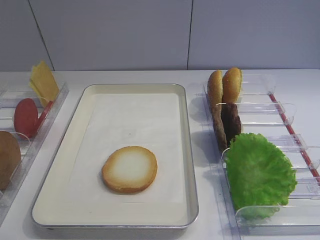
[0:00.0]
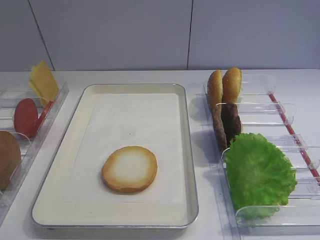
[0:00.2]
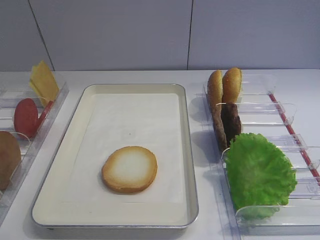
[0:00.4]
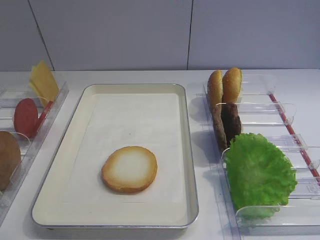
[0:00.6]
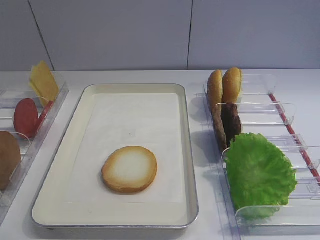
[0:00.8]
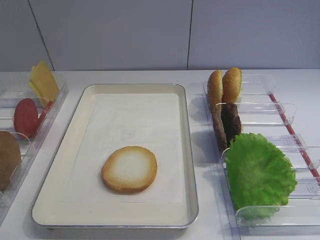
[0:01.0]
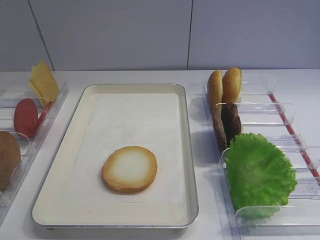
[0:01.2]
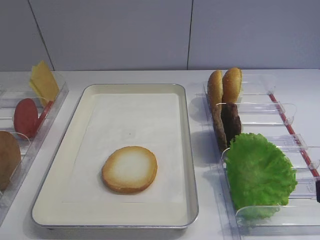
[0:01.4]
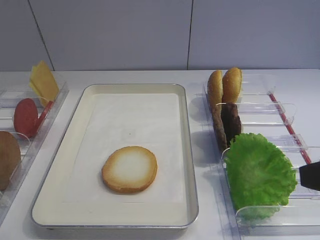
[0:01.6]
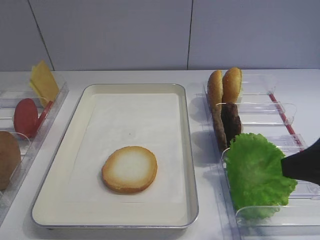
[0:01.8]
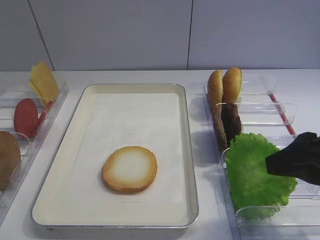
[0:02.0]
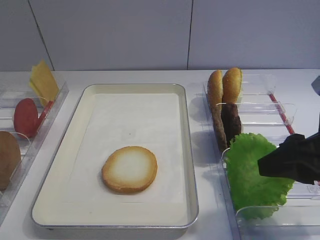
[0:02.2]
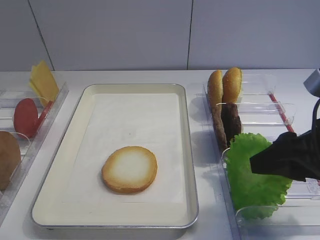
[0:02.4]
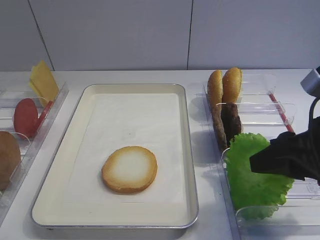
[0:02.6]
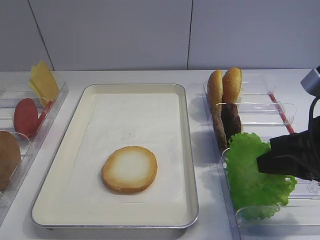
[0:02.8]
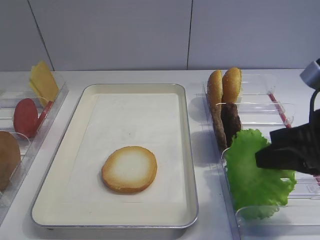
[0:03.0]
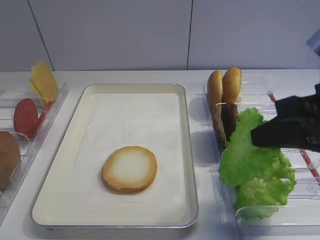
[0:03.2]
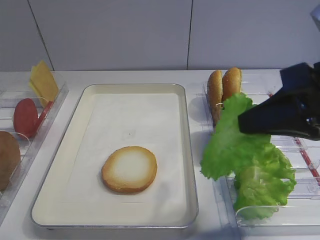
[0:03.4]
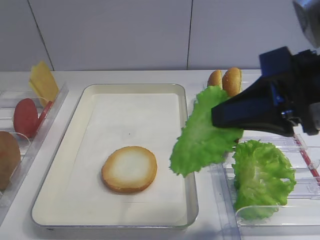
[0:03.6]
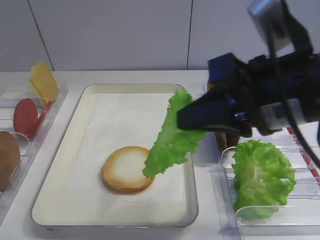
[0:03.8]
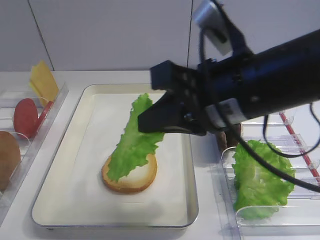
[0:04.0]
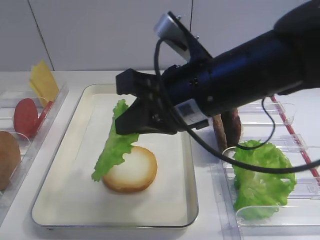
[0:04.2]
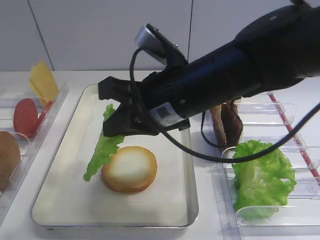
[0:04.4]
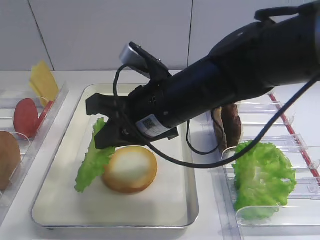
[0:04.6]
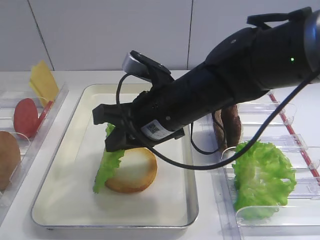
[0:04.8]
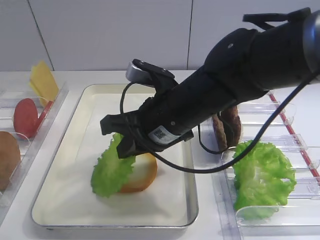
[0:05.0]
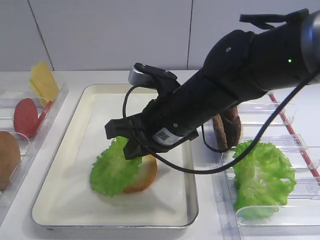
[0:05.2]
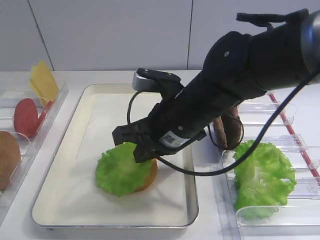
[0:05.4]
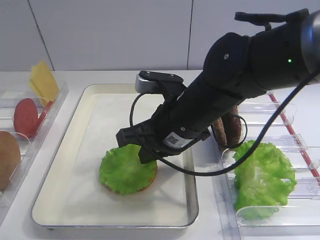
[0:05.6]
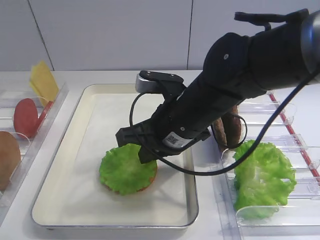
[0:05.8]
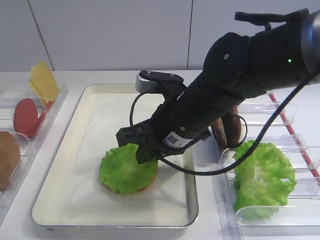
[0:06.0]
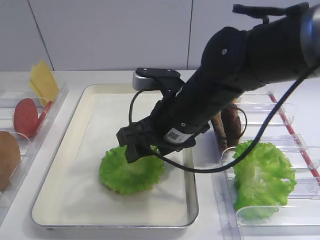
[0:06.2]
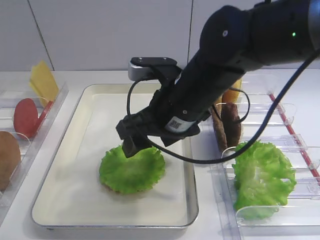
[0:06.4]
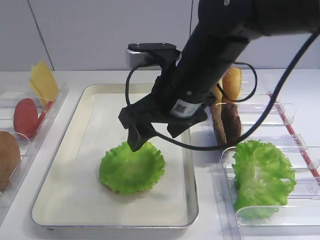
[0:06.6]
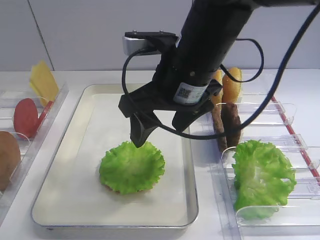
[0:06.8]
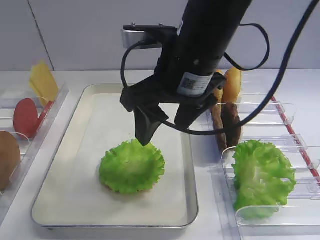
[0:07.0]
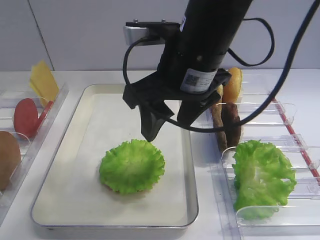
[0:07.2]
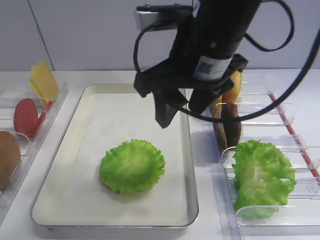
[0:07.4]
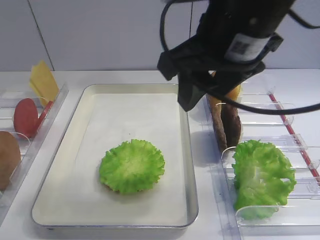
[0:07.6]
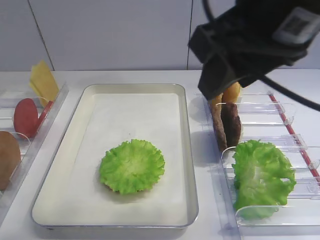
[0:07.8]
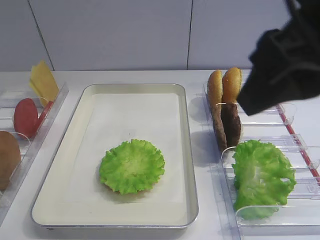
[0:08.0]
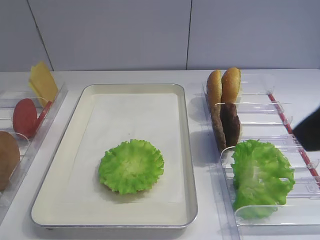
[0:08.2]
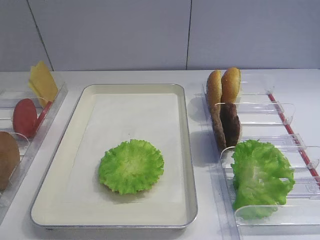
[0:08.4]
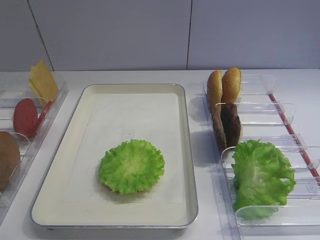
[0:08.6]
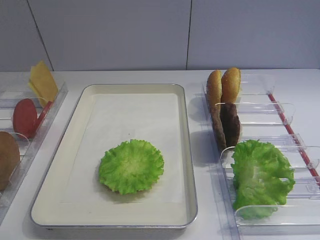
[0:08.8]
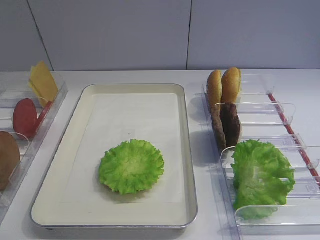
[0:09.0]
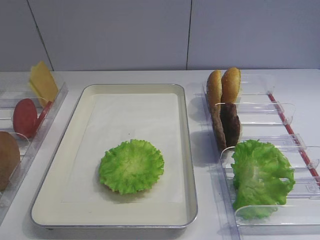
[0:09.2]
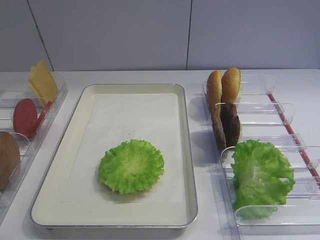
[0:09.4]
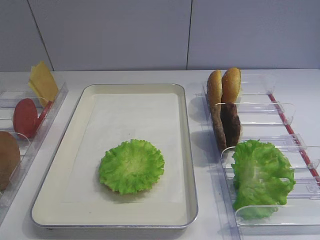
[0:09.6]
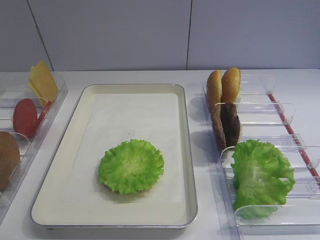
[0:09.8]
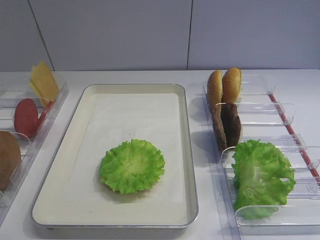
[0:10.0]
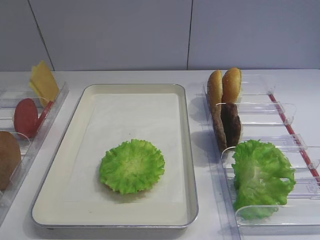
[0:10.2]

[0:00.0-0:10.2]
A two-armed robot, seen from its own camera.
Step, 0:00.0 to 0:03.0: Pick up the lettuce leaf with the right gripper.
Step, 0:03.2 to 0:06.6: Place the lettuce leaf on the bread slice with the right gripper.
0:01.4 to 0:03.0: The right gripper moves forward, about 10 cm, and closes.
0:03.0 to 0:04.4: The right gripper is displaced to the left by about 20 cm.
0:04.4 to 0:05.8: The right gripper travels downward by roughly 5 cm.
0:05.8 to 0:07.2: The right gripper shifts approximately 10 cm upward, and opens.
0:07.2 to 0:08.8: The right gripper travels backward and to the right by roughly 30 cm.
0:08.8 to 0:10.2: The right gripper moves downward, roughly 5 cm.

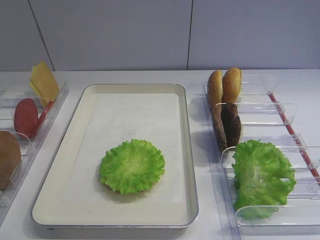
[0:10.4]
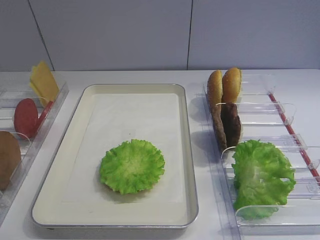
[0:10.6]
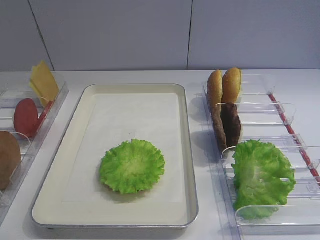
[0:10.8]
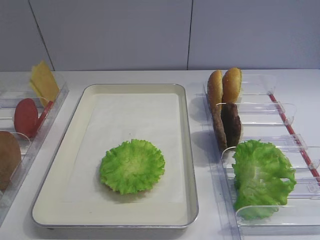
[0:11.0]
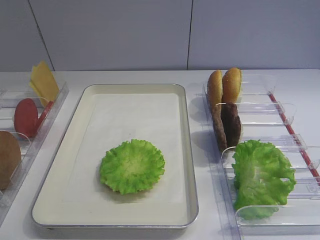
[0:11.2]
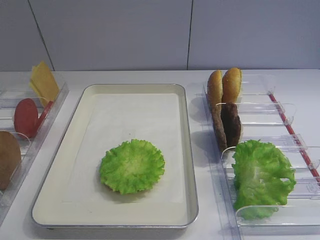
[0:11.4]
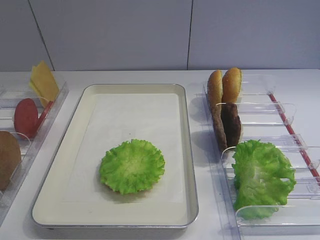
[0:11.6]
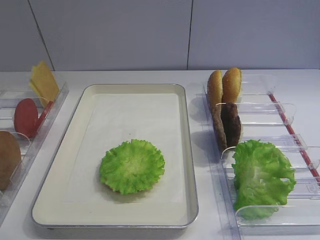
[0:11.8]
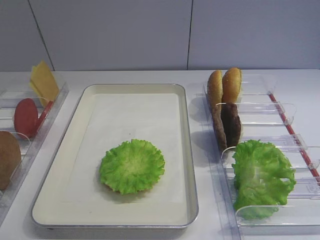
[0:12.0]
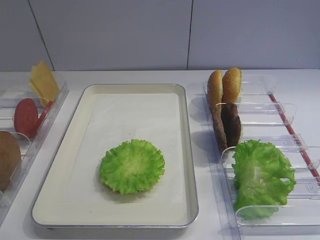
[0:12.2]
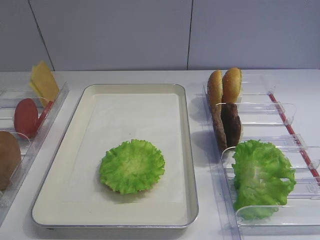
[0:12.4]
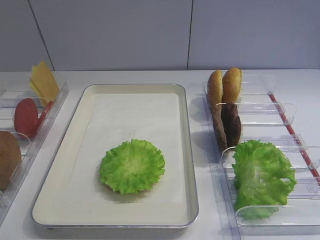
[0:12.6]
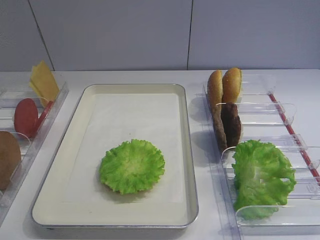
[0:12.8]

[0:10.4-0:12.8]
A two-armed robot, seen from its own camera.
0:10.4 to 0:12.8: Both grippers stay put.

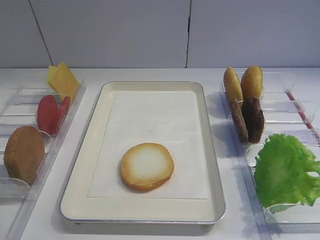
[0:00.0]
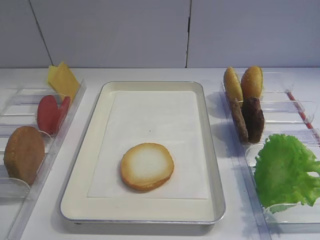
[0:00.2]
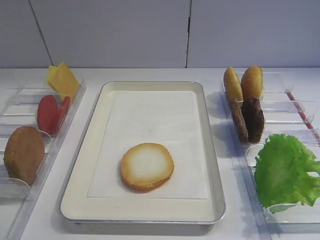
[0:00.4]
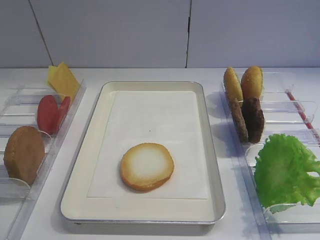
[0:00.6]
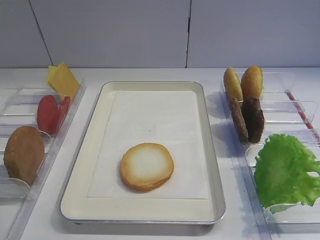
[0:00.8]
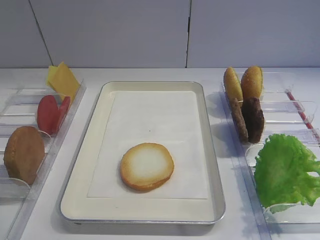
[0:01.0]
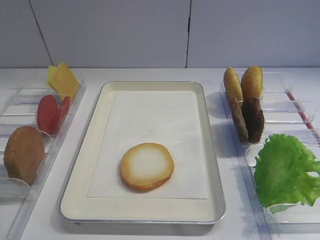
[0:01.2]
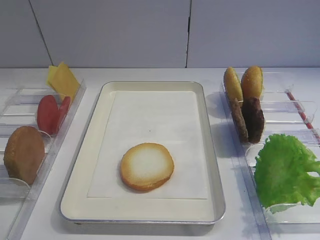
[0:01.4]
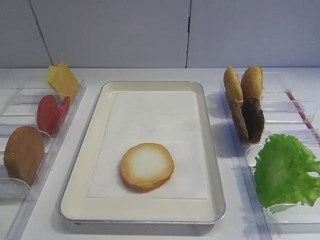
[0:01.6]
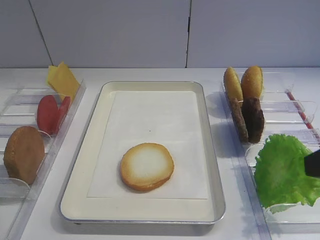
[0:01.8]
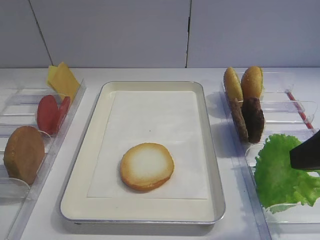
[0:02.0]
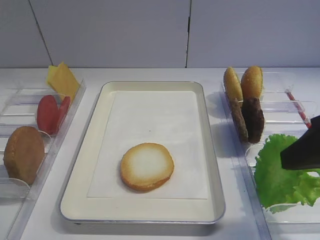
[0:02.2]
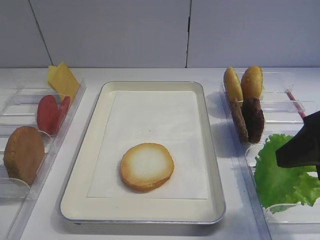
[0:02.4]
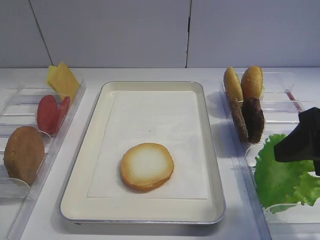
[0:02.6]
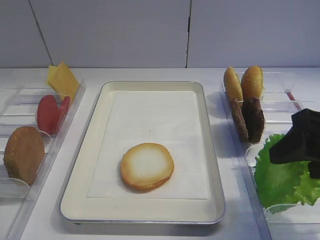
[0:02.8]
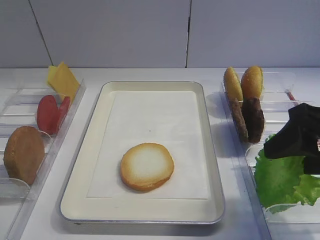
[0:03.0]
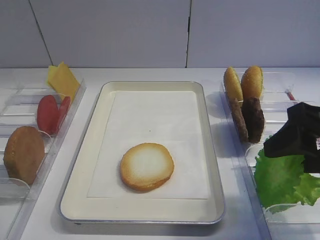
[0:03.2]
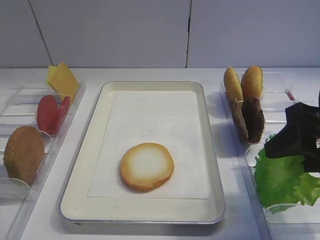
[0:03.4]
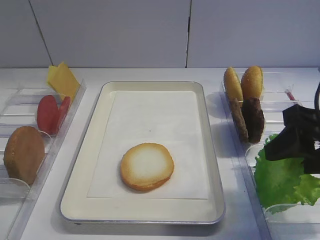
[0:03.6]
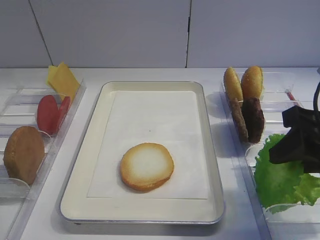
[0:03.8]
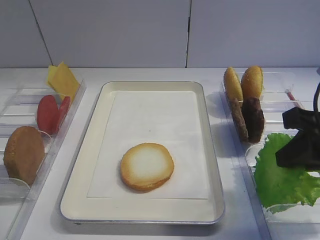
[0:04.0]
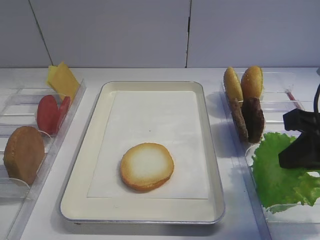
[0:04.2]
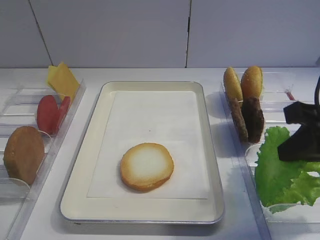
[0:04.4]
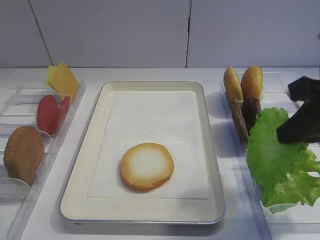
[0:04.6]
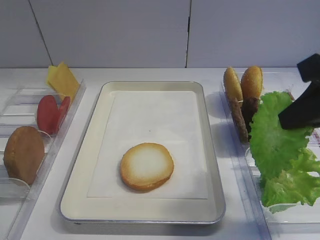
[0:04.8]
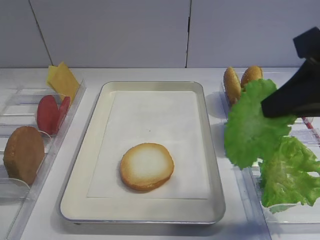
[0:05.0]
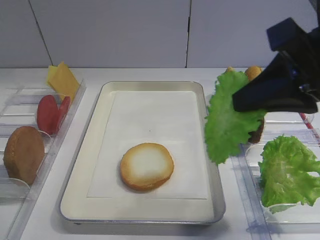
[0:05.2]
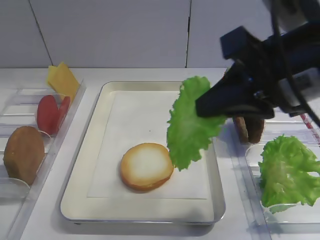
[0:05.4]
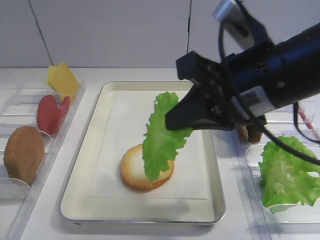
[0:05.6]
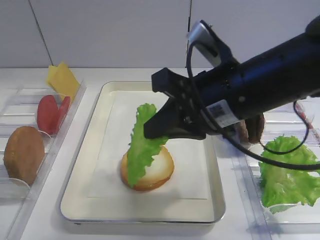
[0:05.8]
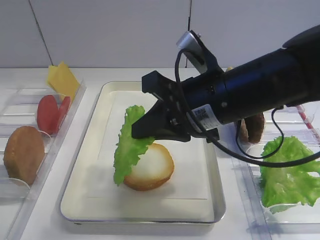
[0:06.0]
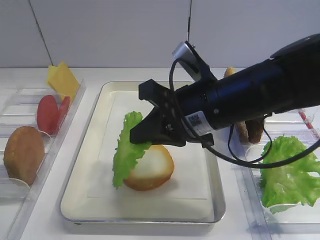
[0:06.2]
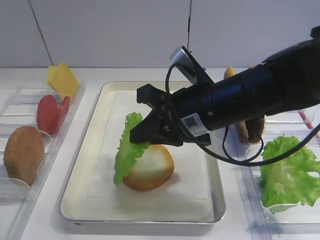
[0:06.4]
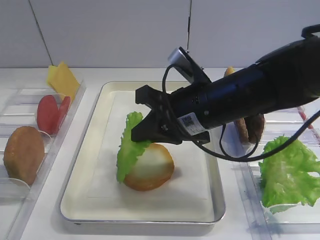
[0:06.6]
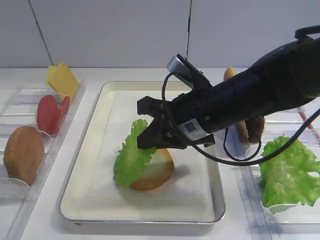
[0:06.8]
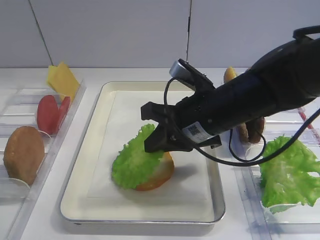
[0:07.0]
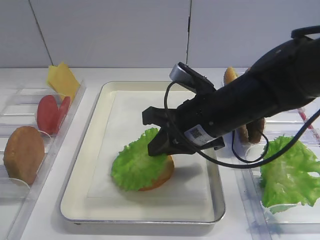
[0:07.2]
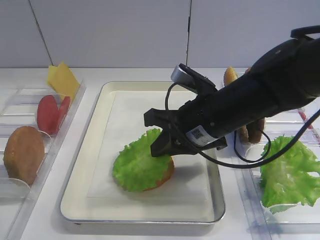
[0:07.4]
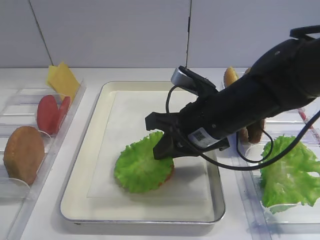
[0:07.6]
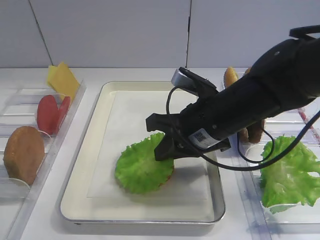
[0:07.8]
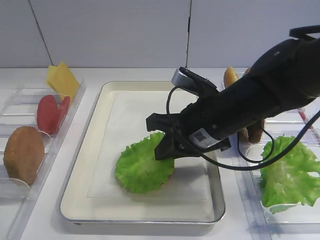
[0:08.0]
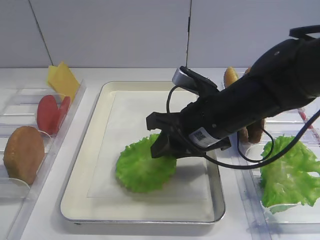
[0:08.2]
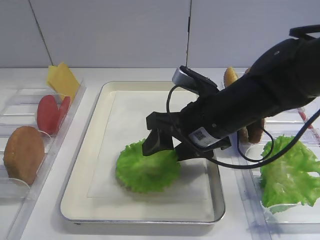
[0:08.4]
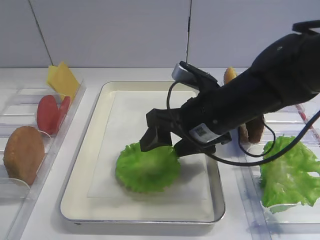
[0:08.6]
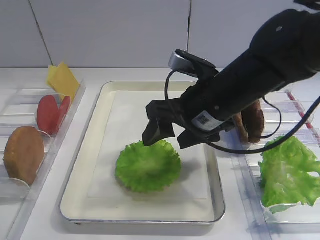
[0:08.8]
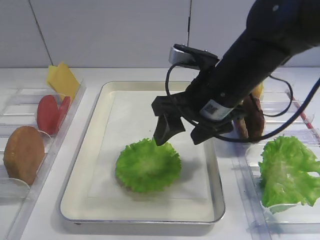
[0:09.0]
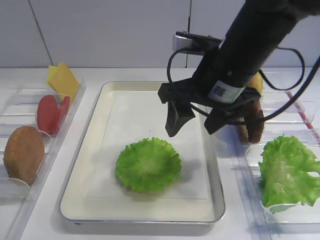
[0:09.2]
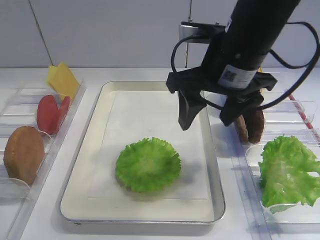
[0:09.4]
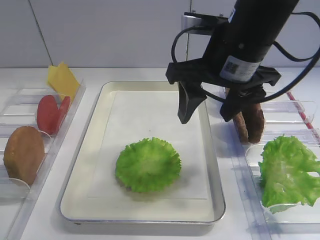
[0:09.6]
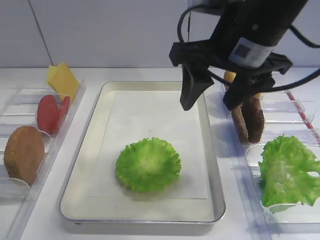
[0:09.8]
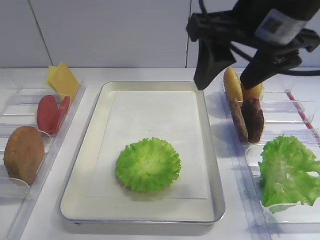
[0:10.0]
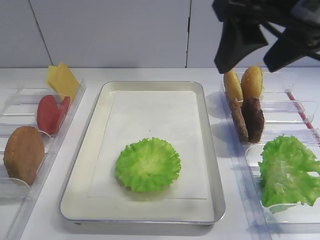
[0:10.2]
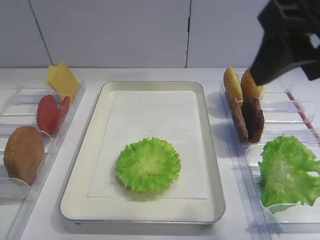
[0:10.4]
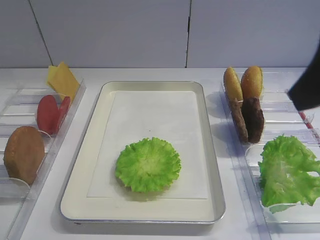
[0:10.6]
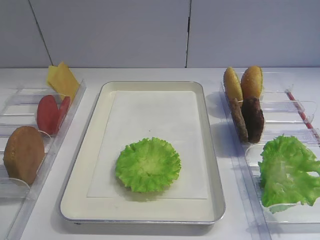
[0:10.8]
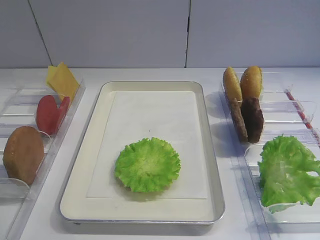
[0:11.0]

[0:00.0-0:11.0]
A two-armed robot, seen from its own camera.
Step, 0:00.0 to 0:04.4: Pick up the lettuce leaf with the right gripper.
Step, 0:04.6 to 0:09.0: Place the lettuce leaf on the bread slice with the right gripper.
0:01.6 to 0:03.2: The right gripper shifts some 10 cm forward.
0:03.2 to 0:04.8: The right gripper shifts approximately 5 cm upward, and closes up.
0:04.8 to 0:06.2: The right gripper travels to the left and downward by approximately 15 cm.
0:06.2 to 0:07.8: There are only small adjustments of the grippers.
0:07.8 to 0:09.4: The right gripper goes some 10 cm upward, and opens its fingers.
0:09.4 to 0:11.0: The right gripper shifts some 30 cm backward and to the right.
